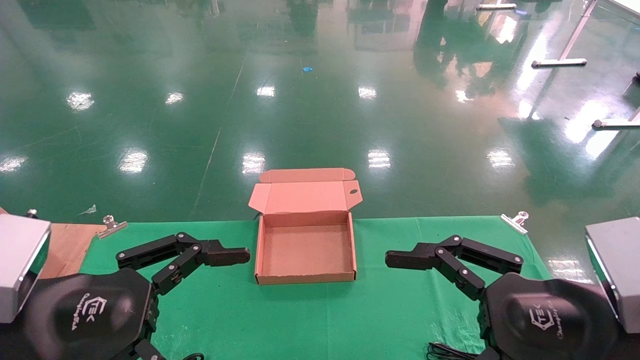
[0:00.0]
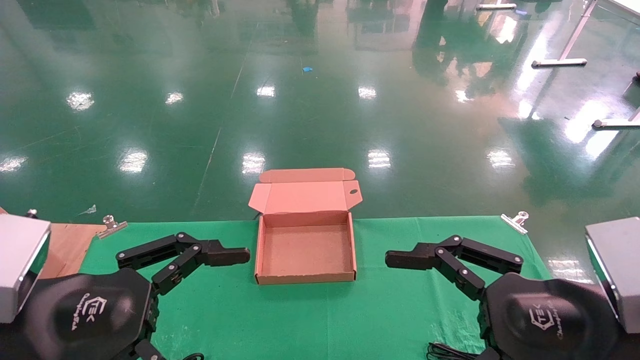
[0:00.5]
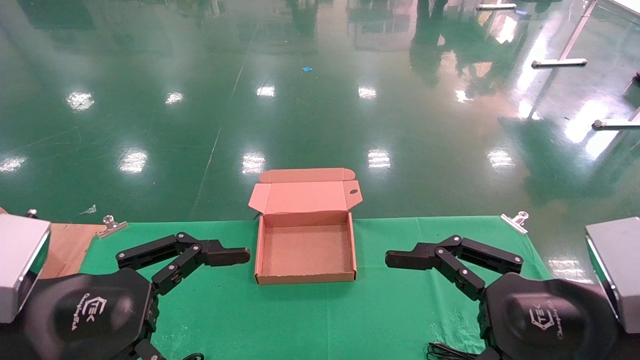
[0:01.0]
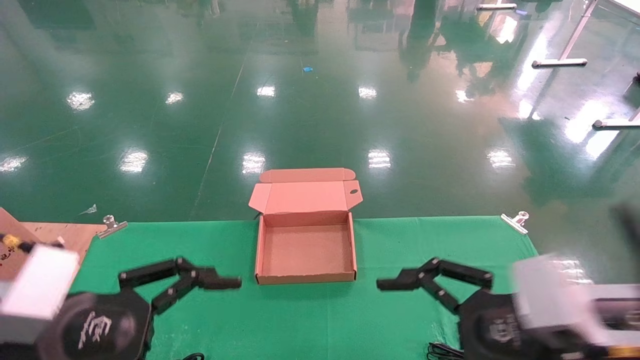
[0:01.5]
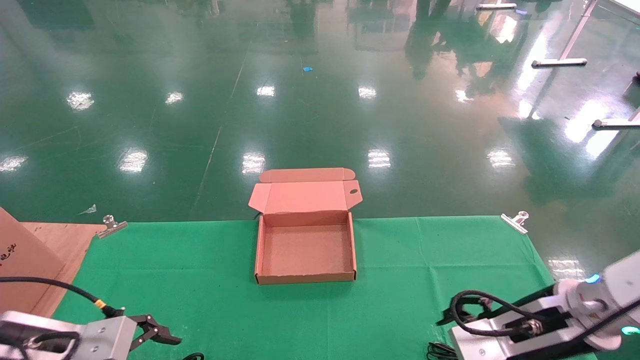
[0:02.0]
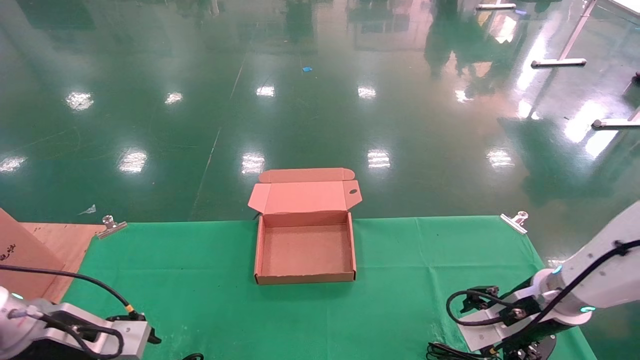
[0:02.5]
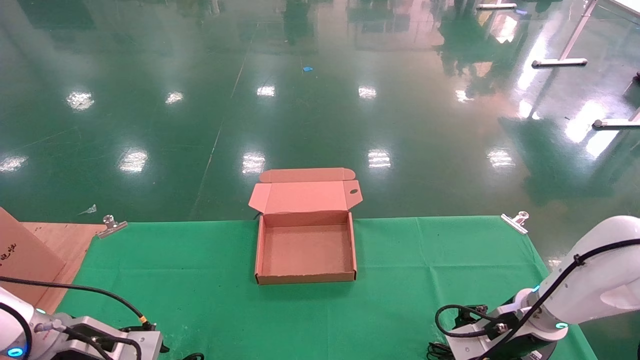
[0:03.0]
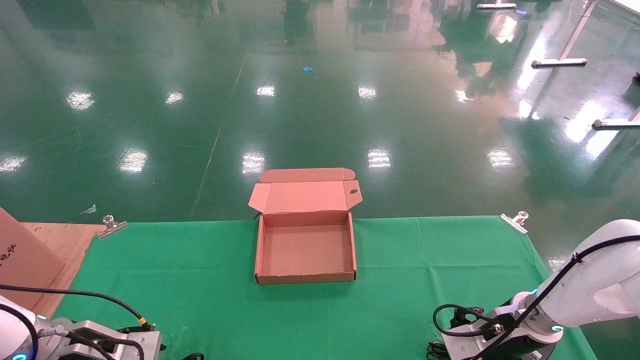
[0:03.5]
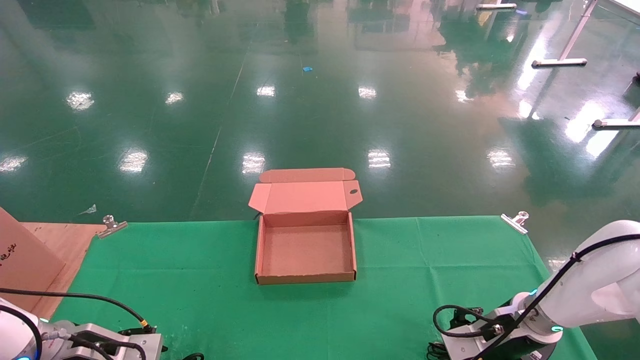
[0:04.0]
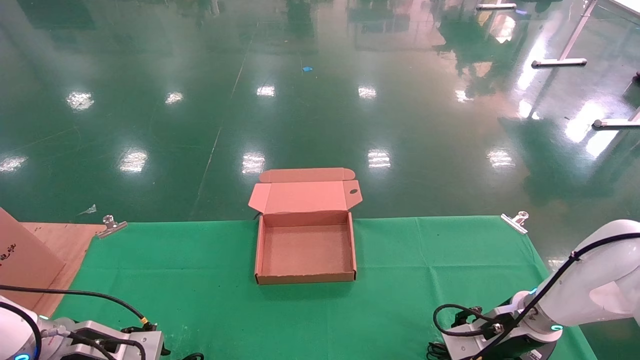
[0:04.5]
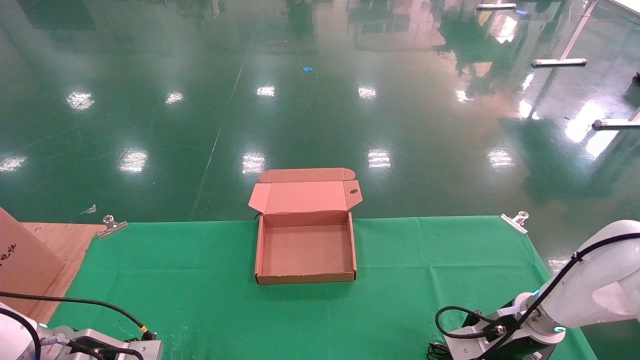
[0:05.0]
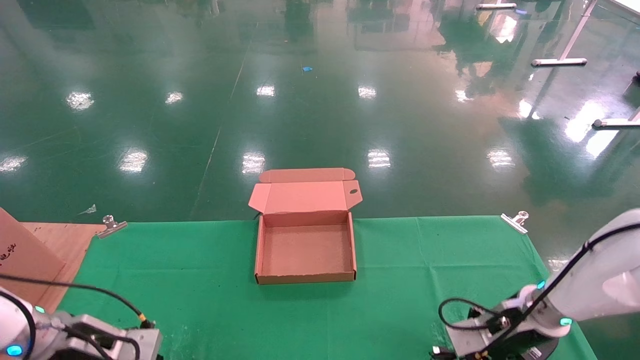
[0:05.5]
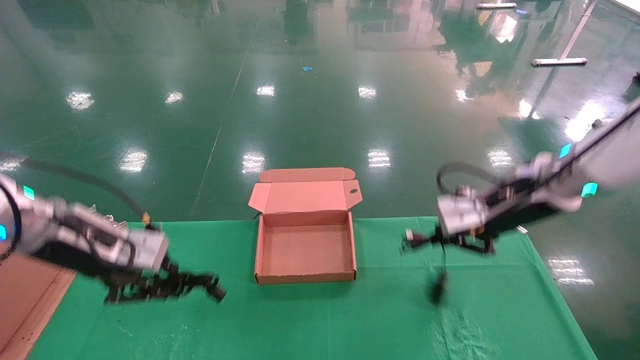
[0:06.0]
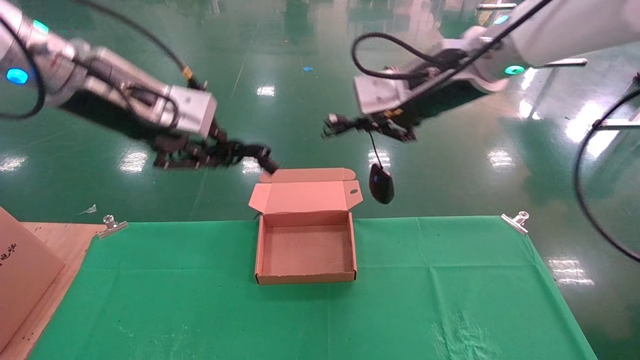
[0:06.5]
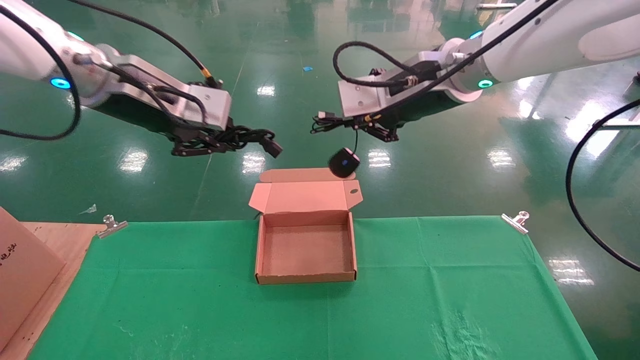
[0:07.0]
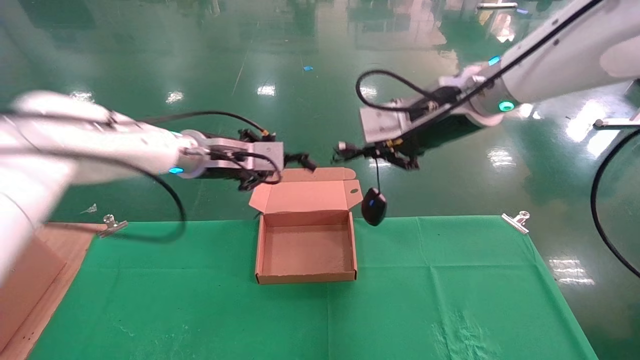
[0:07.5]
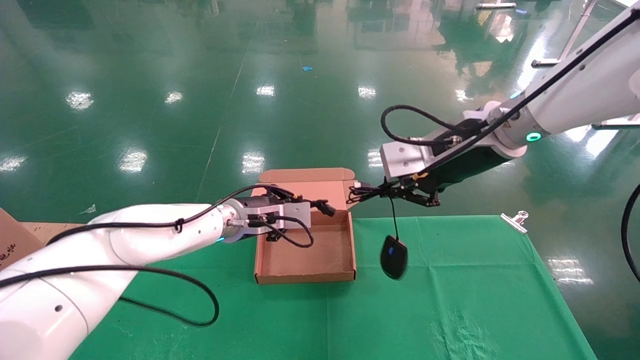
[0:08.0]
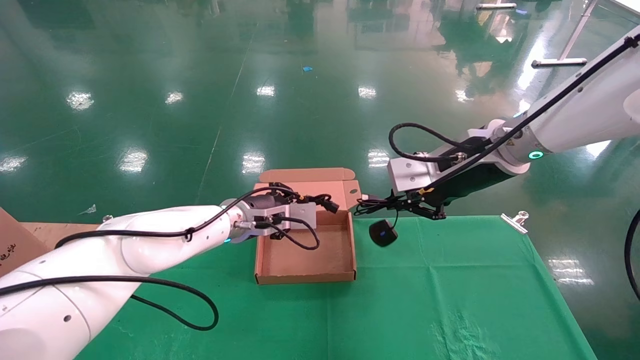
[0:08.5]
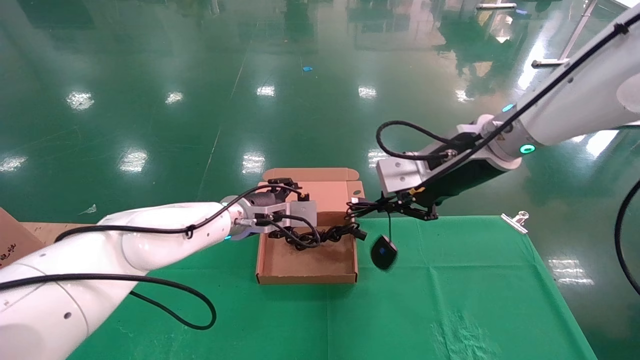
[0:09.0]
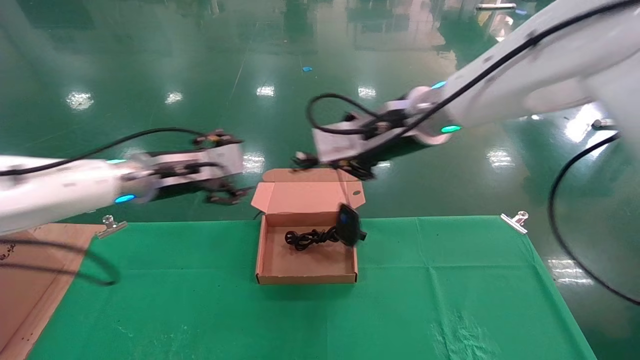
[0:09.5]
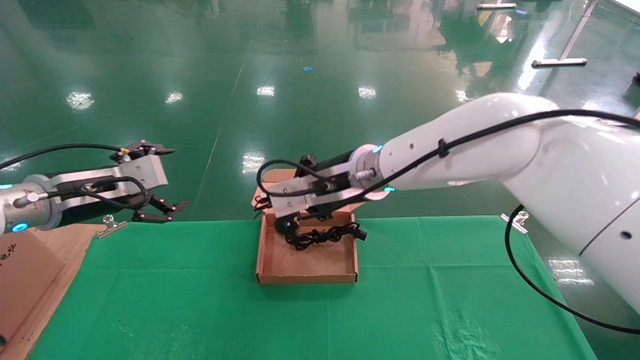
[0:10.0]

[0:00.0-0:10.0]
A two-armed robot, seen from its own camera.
Step, 0:02.0 to 0:06.0: Grab and lift both the mouse and power cord from the accessory packaging area at the same time.
0:00.0 to 0:02.0: The right gripper travels forward and downward by some 15 cm, while the left gripper moves forward, downward and to the left, about 15 cm.
0:02.0 to 0:04.0: The right gripper heads forward and downward, covering about 15 cm. Meanwhile the left gripper shifts roughly 15 cm downward and forward.
0:04.0 to 0:06.0: Both grippers move upward, about 20 cm. The right gripper closes up, while the left gripper closes its fingers.
0:06.0 to 0:08.0: The left gripper travels to the right and forward by about 25 cm, and reaches some 15 cm upward, then returns. The right gripper moves to the left and upward, some 10 cm.
0:08.0 to 0:10.0: The right gripper travels to the left by some 15 cm, while the left gripper travels to the left and backward by about 20 cm, and opens.

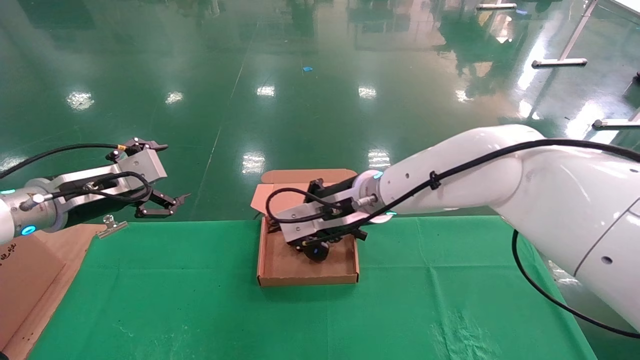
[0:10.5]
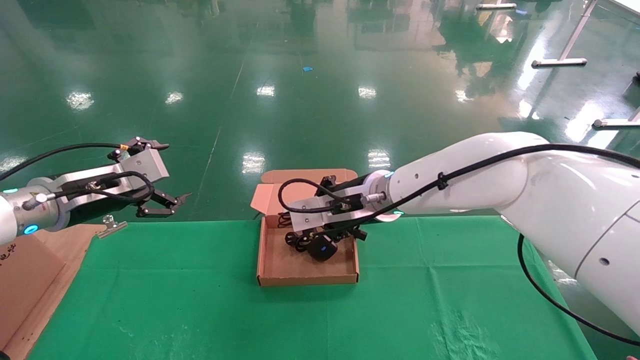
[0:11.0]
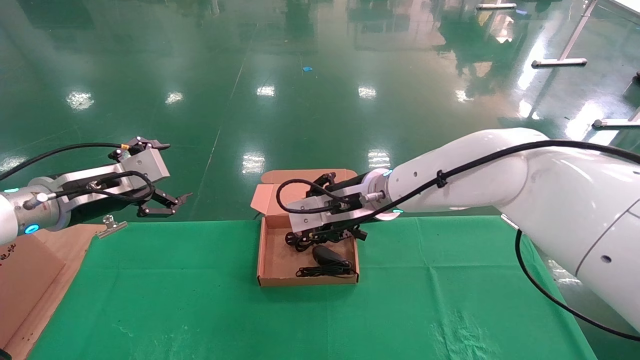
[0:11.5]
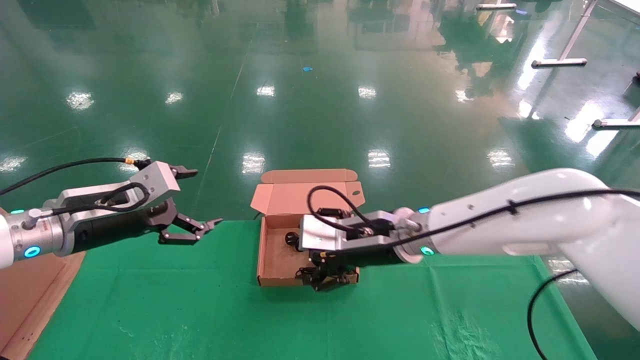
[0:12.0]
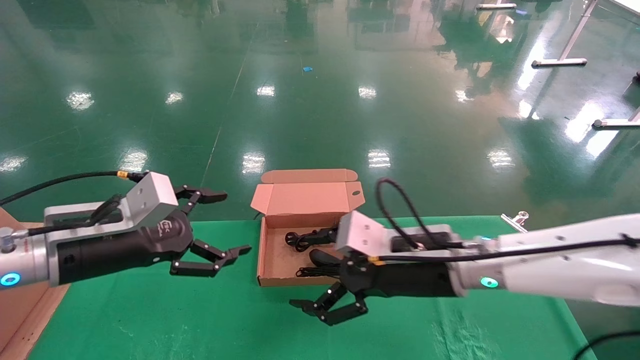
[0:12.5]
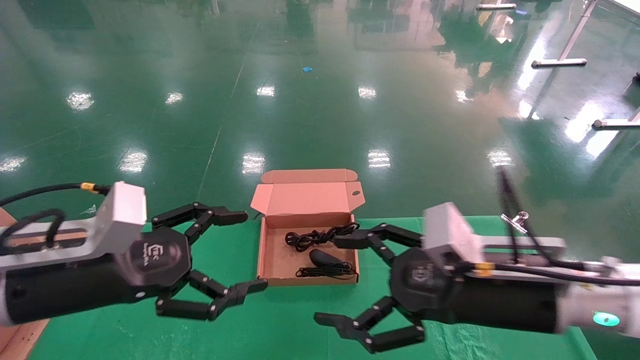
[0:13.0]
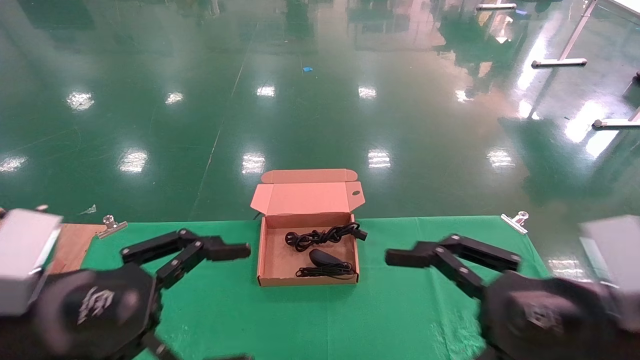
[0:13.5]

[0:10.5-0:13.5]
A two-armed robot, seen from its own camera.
0:10.5 to 0:12.0: The right gripper travels downward by about 5 cm, and opens its fingers.
0:12.0 to 0:13.5: The right gripper is displaced backward and to the right by roughly 25 cm; the left gripper heads backward, covering roughly 15 cm.

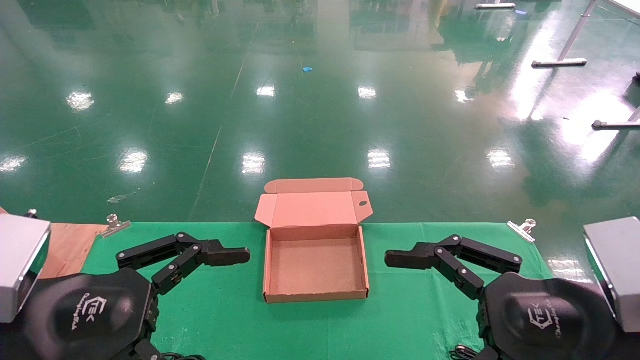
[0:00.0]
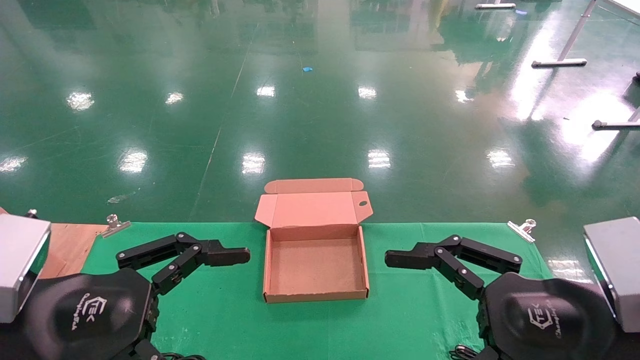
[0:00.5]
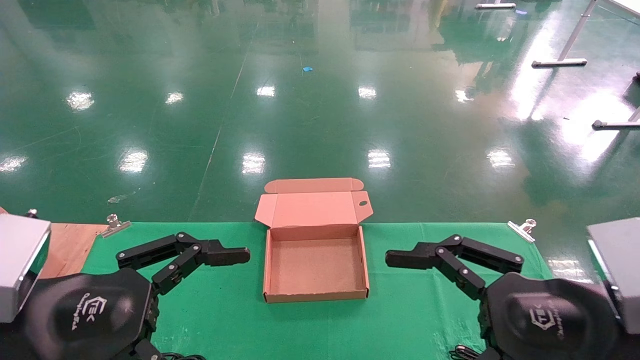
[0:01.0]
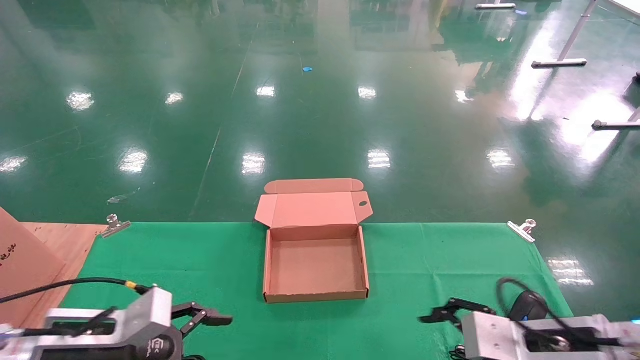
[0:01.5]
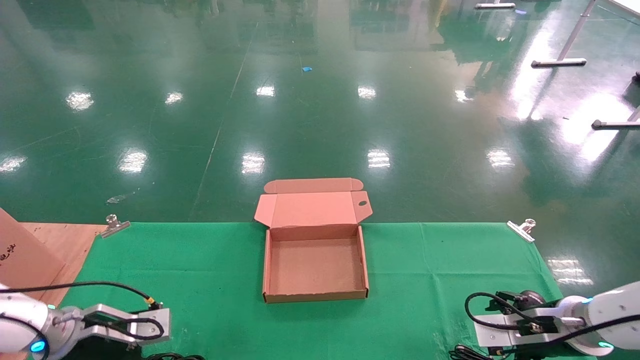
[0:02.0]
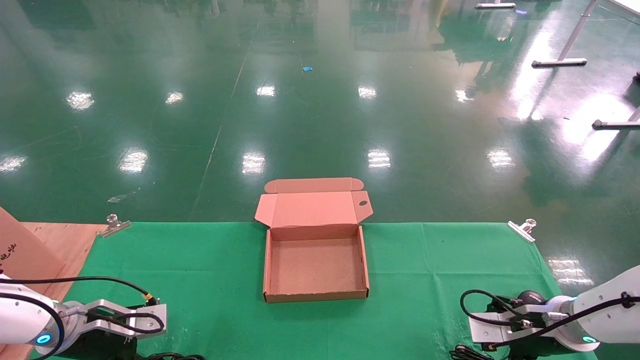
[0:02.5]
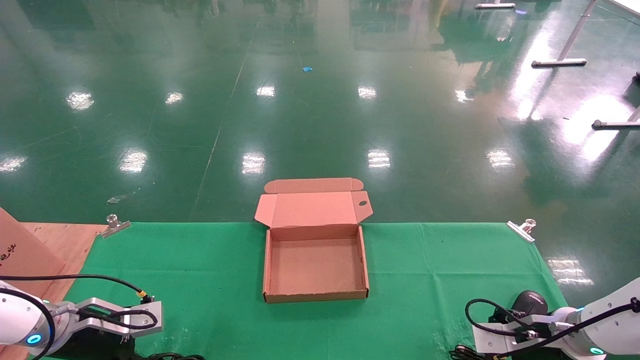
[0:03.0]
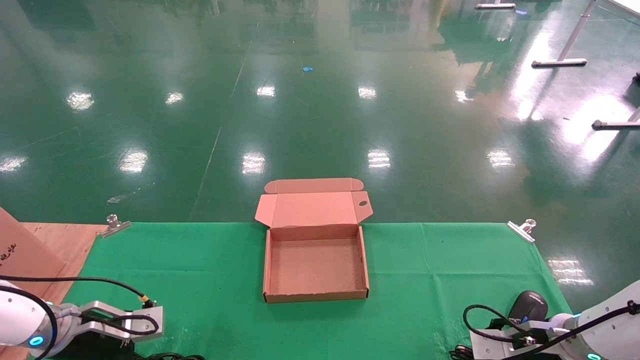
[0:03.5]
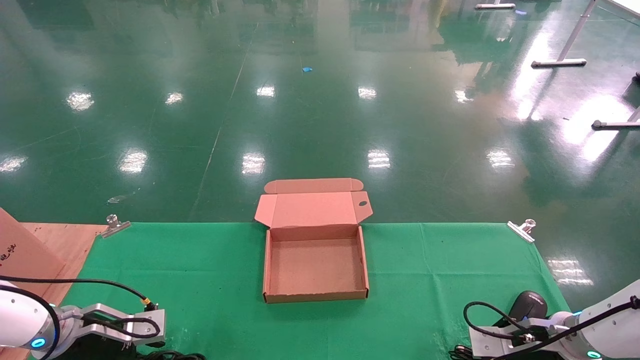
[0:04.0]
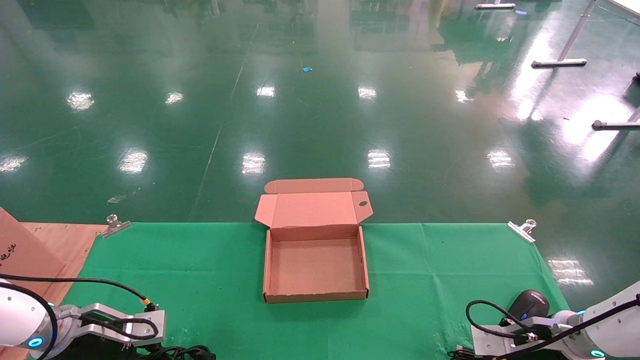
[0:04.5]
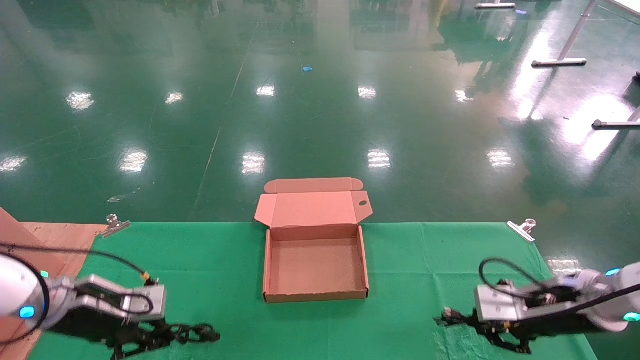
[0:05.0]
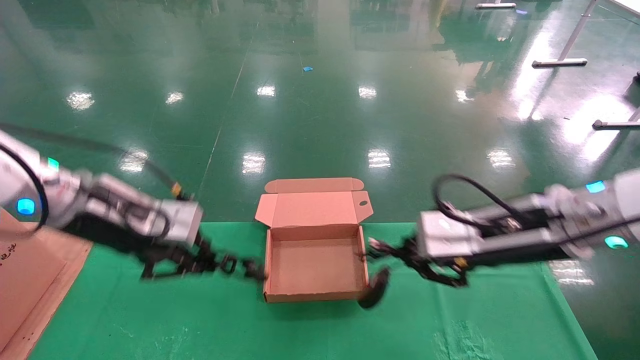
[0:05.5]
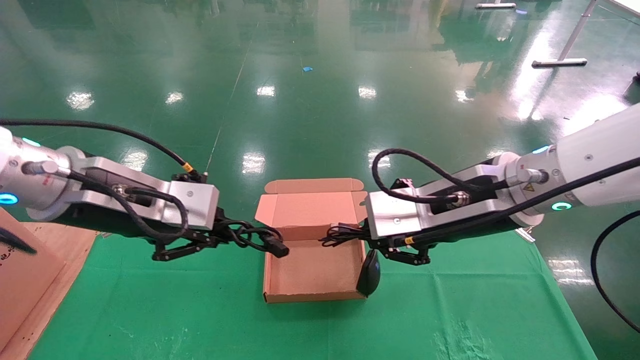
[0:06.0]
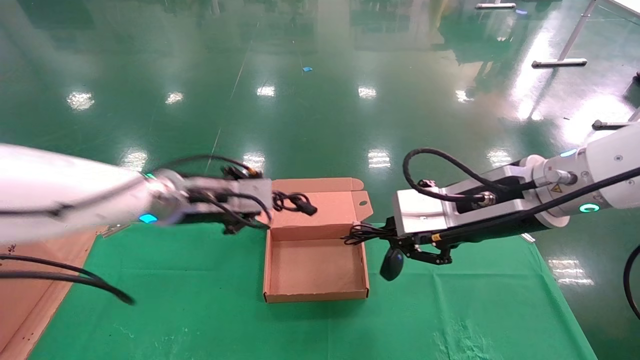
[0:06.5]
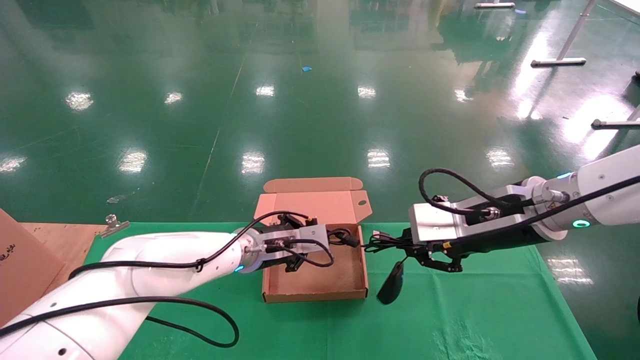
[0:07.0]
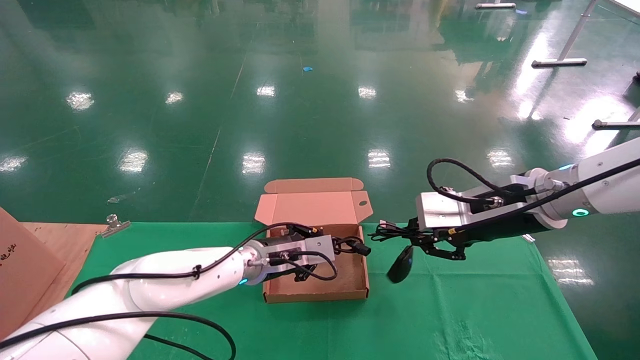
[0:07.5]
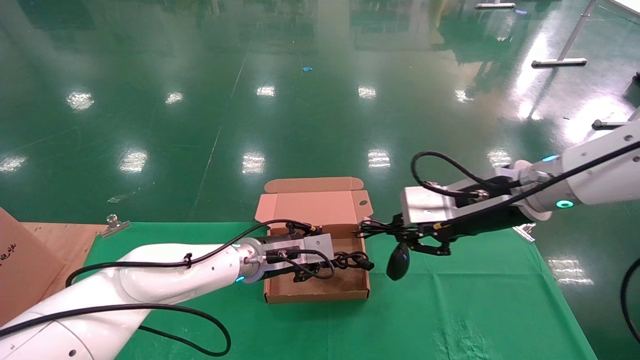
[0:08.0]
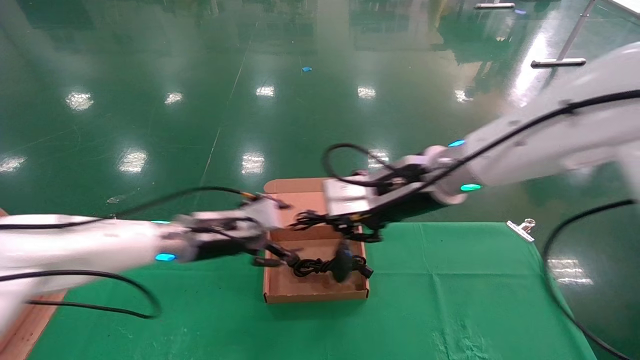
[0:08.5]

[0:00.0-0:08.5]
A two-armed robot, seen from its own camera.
Step, 0:02.0 to 0:05.0: Grab and lift both the mouse and power cord from the accessory packaging area at the same time.
0:00.0 to 0:02.0: The left gripper travels forward, downward and to the left by approximately 25 cm. The right gripper heads forward and downward, covering about 25 cm.
0:02.0 to 0:04.0: The left gripper closes its fingers; the right gripper moves some 5 cm, and closes its fingers.
0:04.0 to 0:06.5: The left gripper travels to the right and upward by approximately 30 cm, and closes; the right gripper heads upward and to the left, covering some 30 cm, and closes its fingers.
0:06.5 to 0:08.5: The left gripper moves downward, about 10 cm, and opens up. Meanwhile the right gripper moves to the left and forward, roughly 10 cm.
